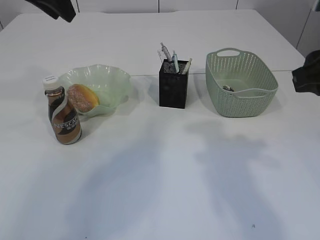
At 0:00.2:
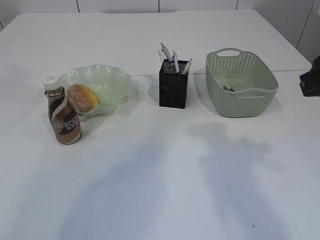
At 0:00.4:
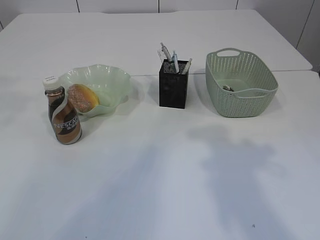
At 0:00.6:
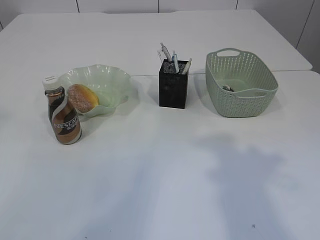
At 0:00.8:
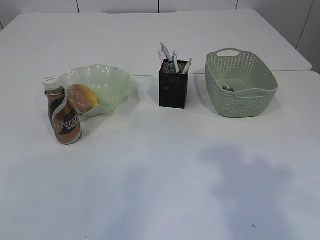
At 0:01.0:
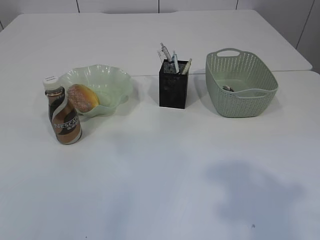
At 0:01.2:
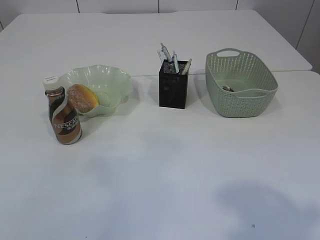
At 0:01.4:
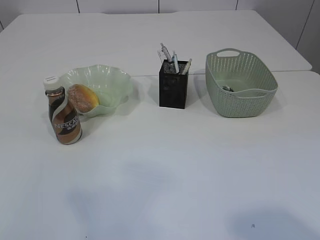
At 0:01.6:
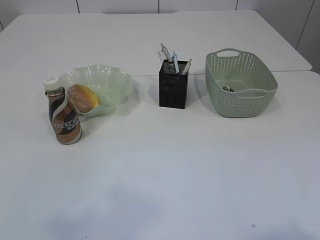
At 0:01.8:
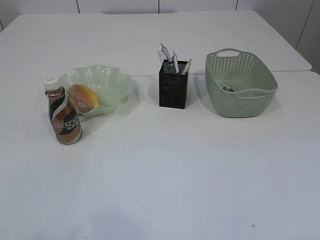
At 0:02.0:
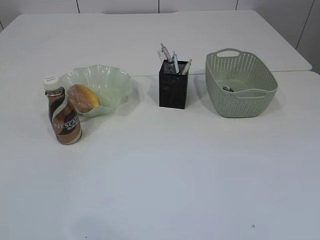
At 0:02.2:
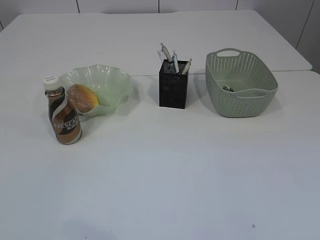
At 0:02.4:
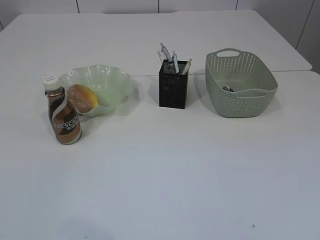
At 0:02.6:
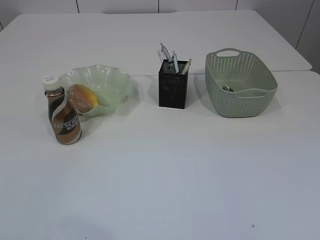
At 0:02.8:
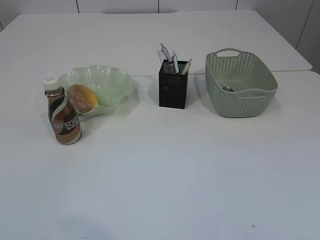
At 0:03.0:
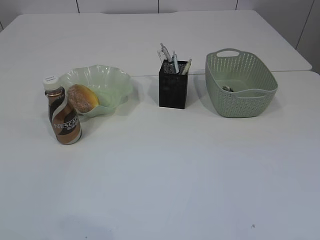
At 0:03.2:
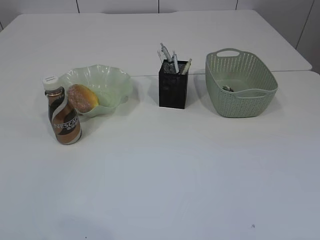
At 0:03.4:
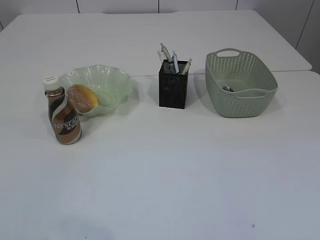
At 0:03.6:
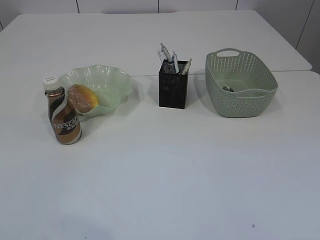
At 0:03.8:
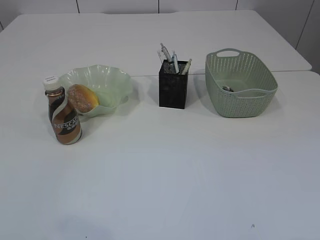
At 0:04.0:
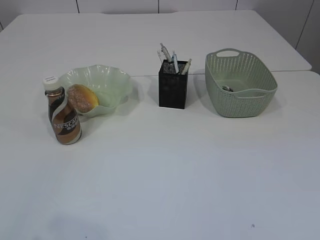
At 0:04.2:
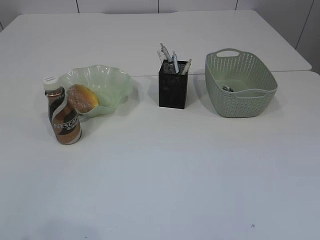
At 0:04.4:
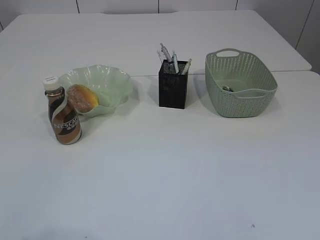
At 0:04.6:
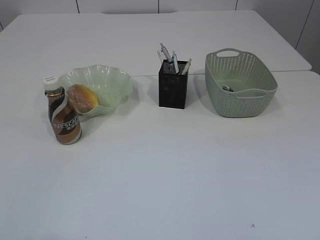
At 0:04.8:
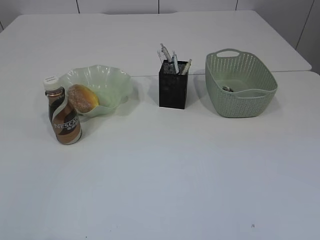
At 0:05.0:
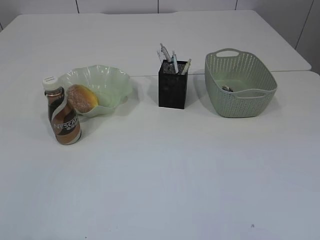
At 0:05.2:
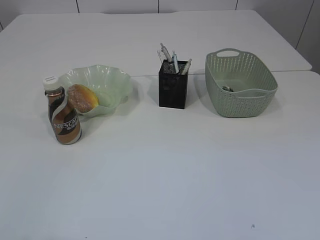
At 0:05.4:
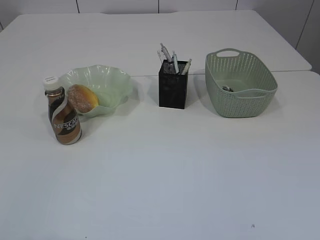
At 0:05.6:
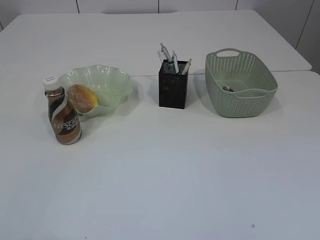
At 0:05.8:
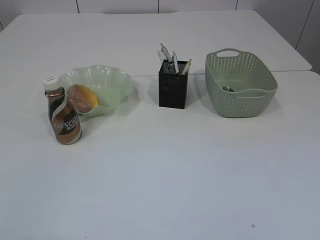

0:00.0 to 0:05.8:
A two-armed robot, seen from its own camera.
0:00.0 to 0:01.4: The left gripper shifts about 35 cm backward; the right gripper shifts about 20 cm backward.
